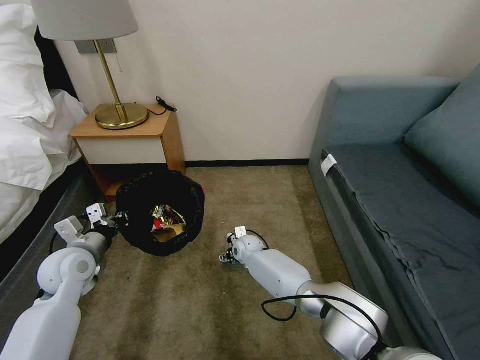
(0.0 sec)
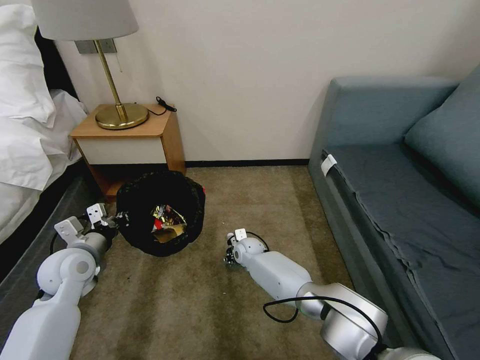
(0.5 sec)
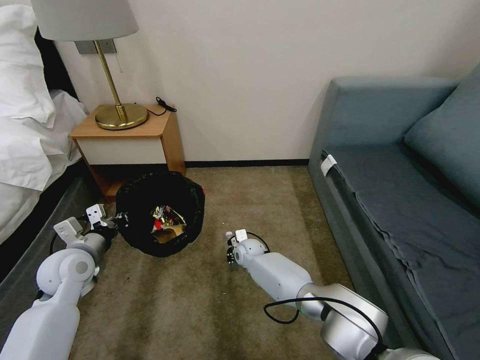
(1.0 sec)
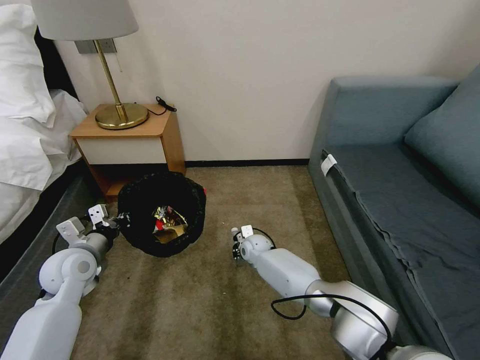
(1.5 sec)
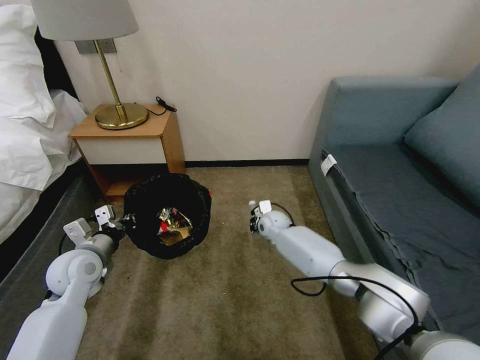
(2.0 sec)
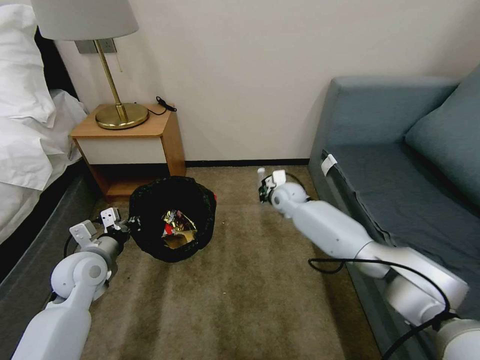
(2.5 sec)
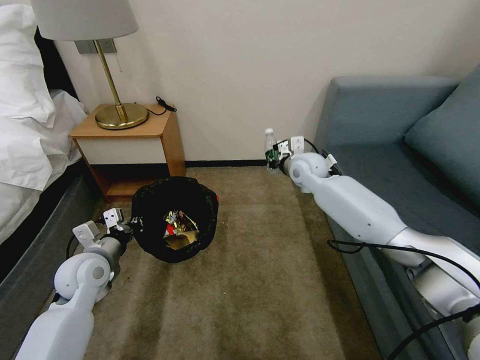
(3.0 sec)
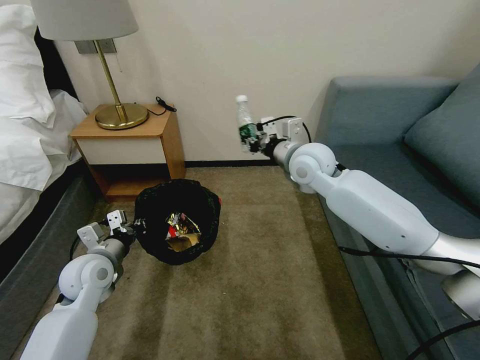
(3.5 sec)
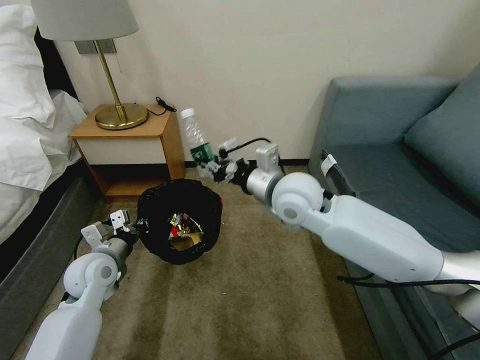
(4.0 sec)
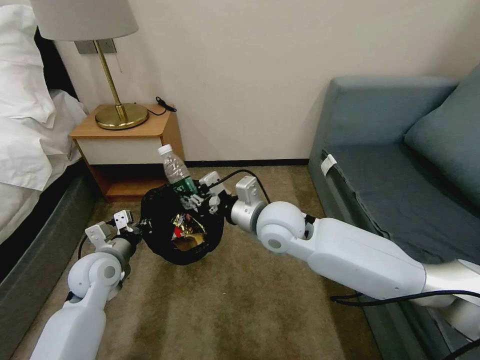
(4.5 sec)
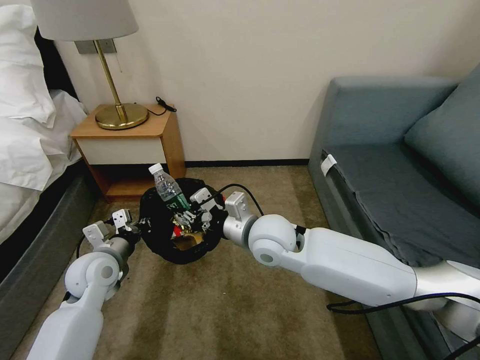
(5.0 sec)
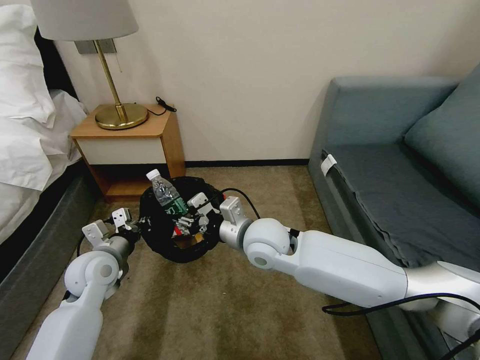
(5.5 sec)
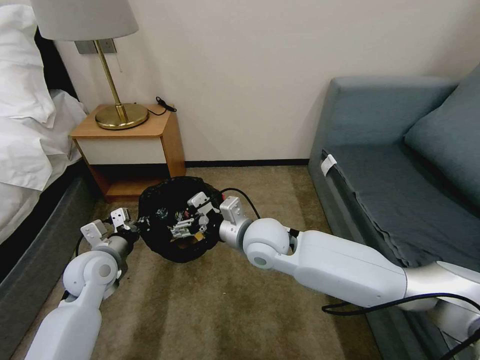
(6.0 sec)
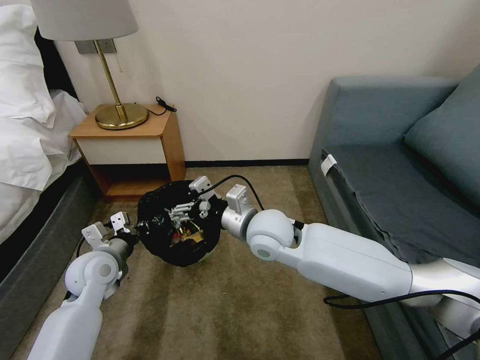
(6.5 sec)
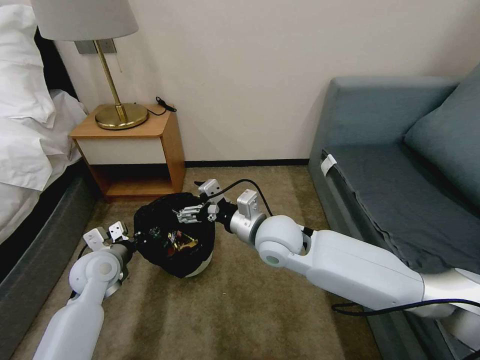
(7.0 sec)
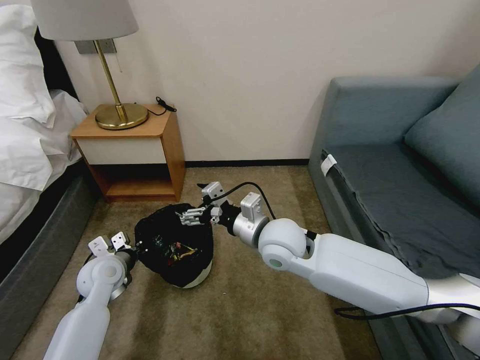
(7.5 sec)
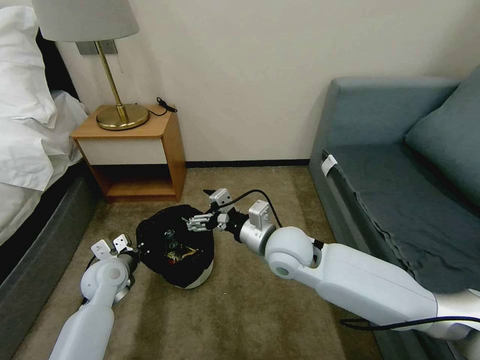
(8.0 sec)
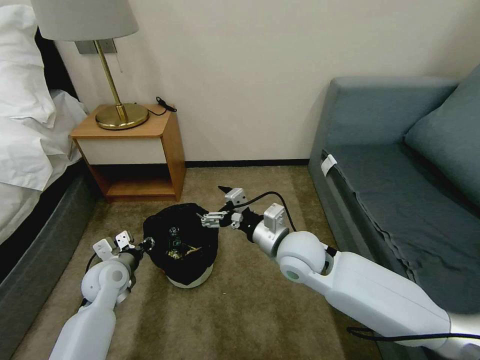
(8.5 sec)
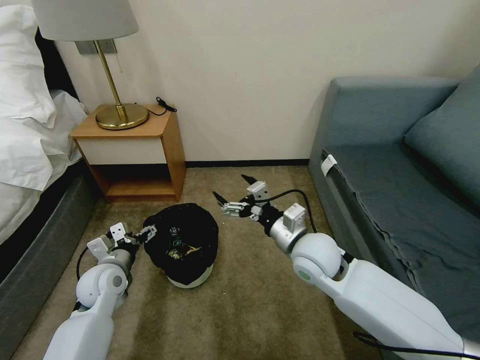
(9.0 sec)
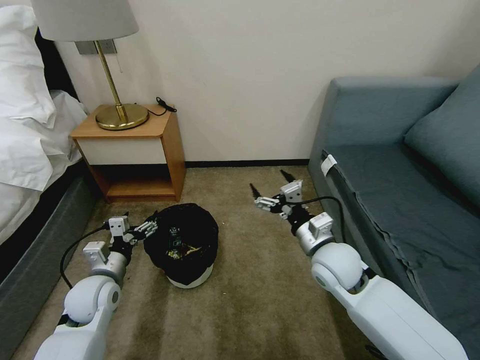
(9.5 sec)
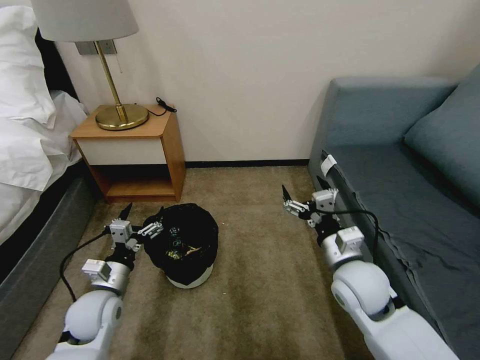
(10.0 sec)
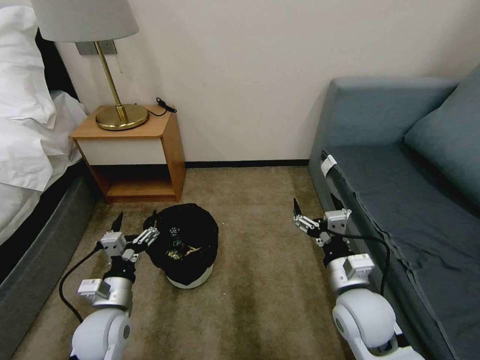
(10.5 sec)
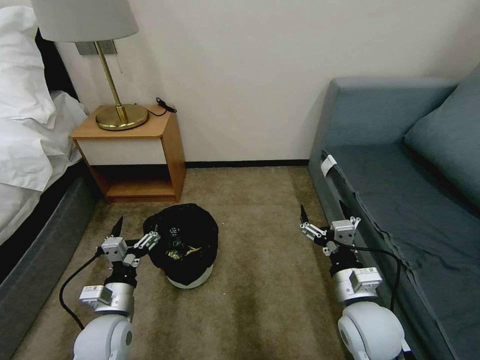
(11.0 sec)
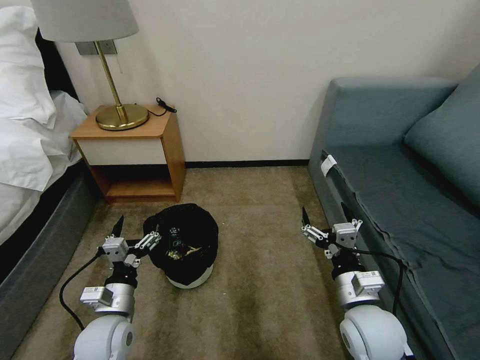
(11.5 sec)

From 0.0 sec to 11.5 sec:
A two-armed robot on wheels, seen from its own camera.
Task of the whole recording: Pick up the trash bin, then pick up the garbage on the floor and place it into the trash bin.
From 0.0 sec to 2.0 sec: The right gripper goes some 10 cm to the right, upward and forward, and closes up.
From 2.0 sec to 4.0 sec: The right gripper moves upward and backward, approximately 30 cm.
From 4.0 sec to 6.0 sec: The right gripper moves downward and to the left, about 10 cm, and opens up.
From 6.0 sec to 7.5 sec: The left gripper shifts by roughly 5 cm.
From 7.5 sec to 9.5 sec: The left gripper opens its fingers. Meanwhile the right gripper is displaced to the right by some 10 cm.
From 9.5 sec to 11.5 sec: The right gripper is displaced backward by some 10 cm. The left gripper goes some 10 cm backward and to the right.

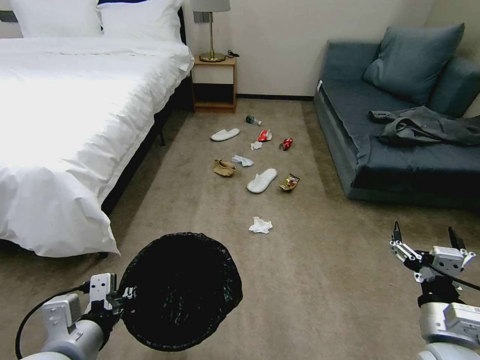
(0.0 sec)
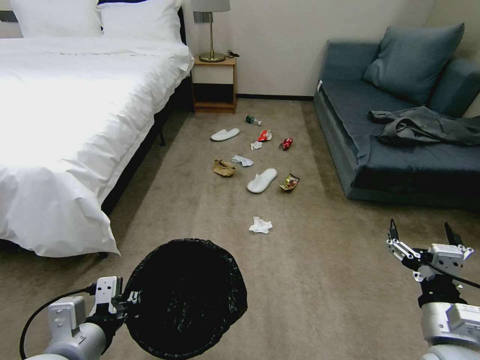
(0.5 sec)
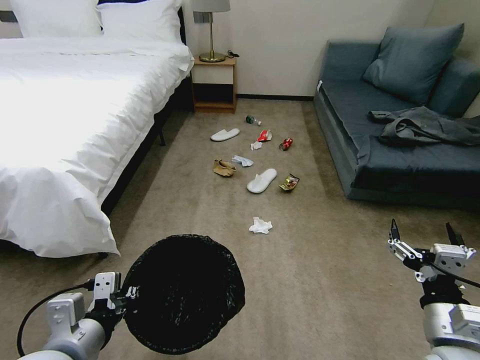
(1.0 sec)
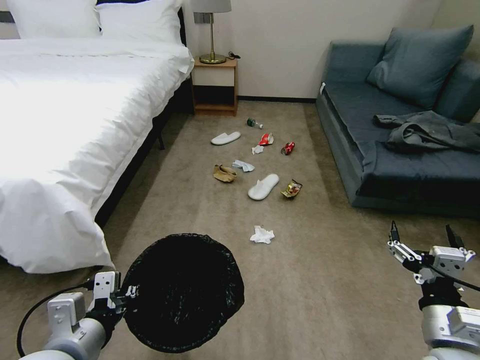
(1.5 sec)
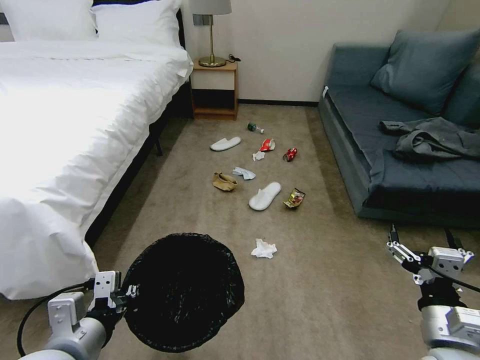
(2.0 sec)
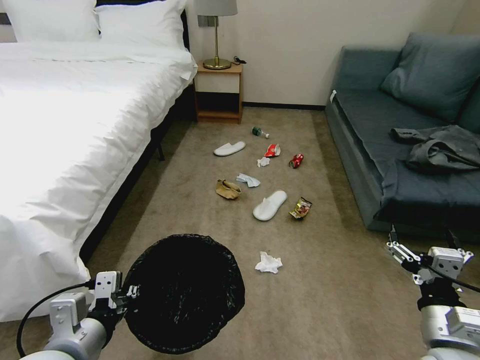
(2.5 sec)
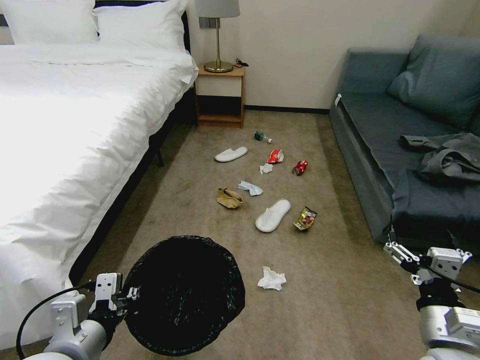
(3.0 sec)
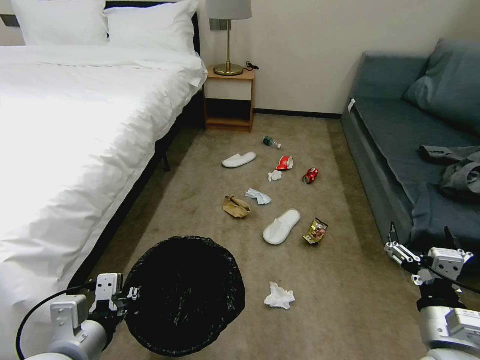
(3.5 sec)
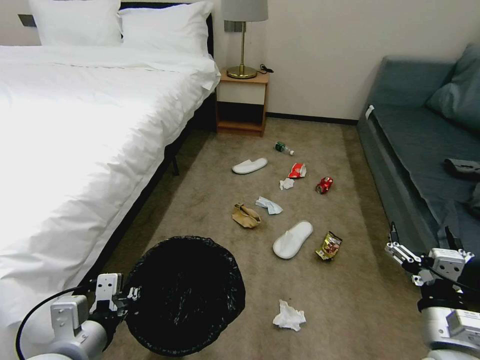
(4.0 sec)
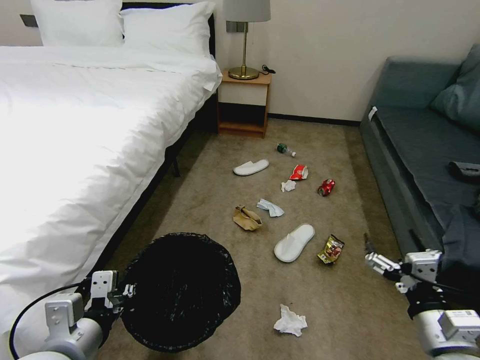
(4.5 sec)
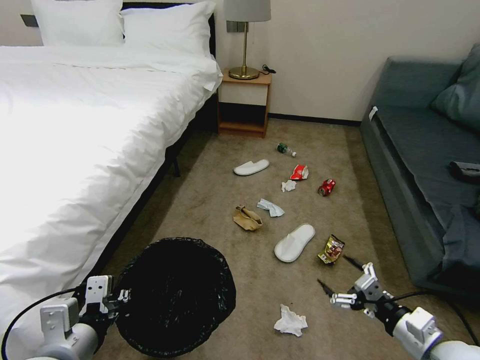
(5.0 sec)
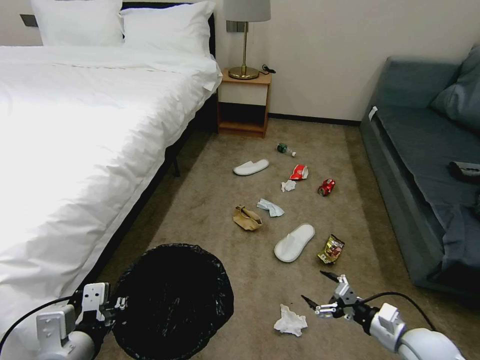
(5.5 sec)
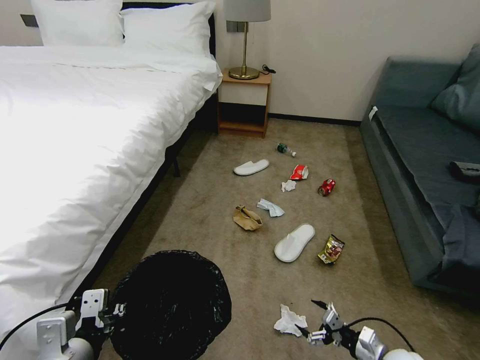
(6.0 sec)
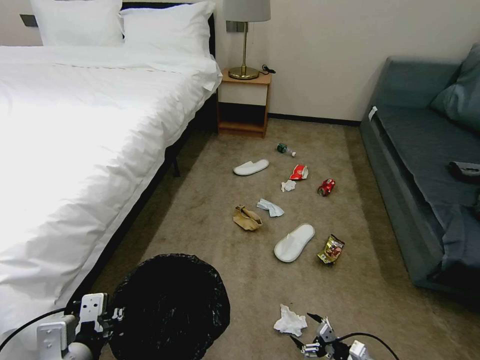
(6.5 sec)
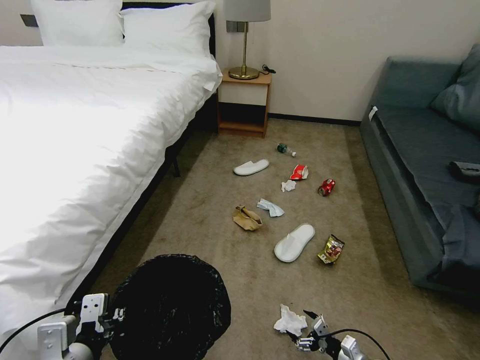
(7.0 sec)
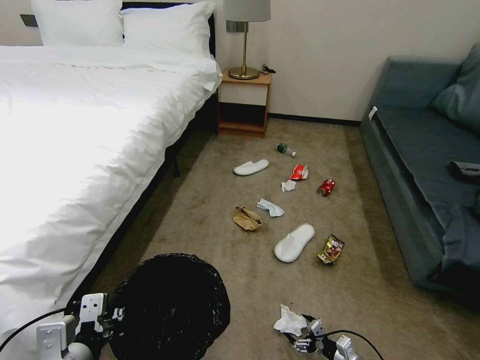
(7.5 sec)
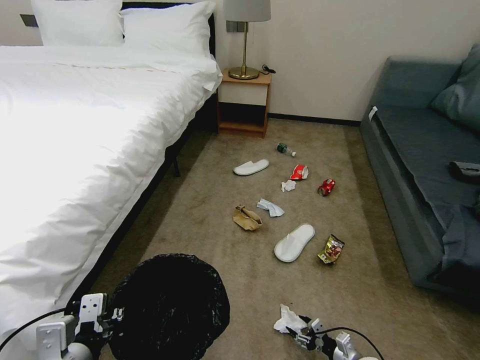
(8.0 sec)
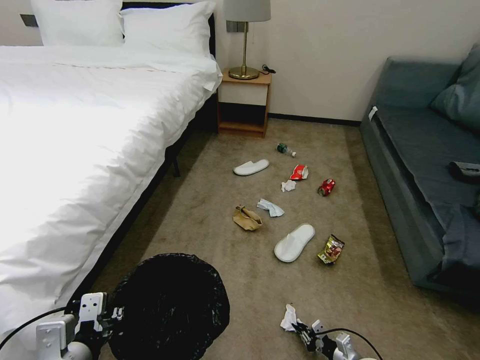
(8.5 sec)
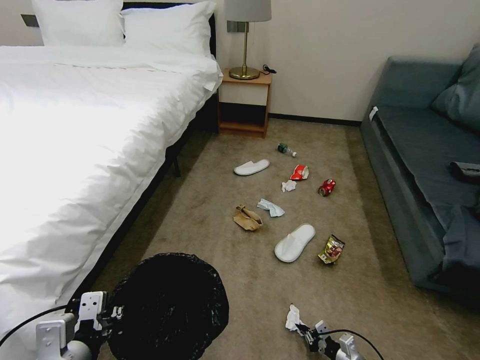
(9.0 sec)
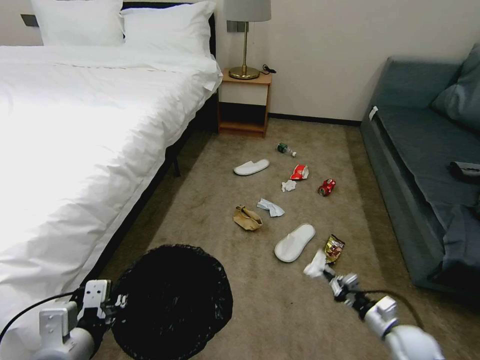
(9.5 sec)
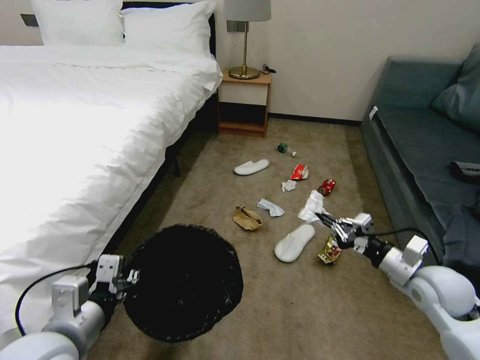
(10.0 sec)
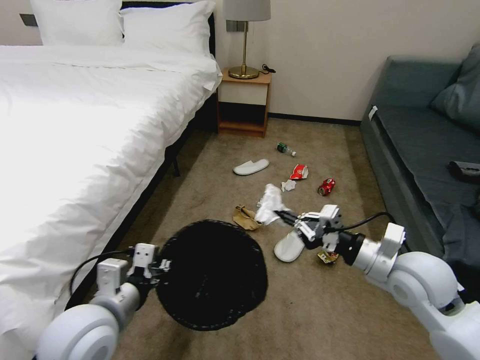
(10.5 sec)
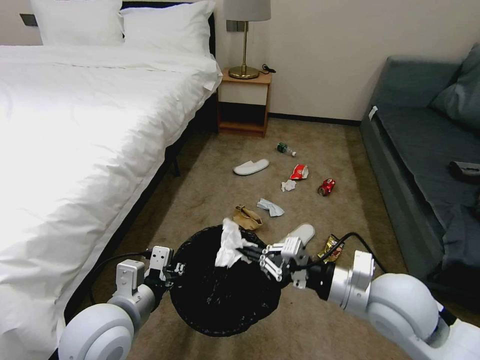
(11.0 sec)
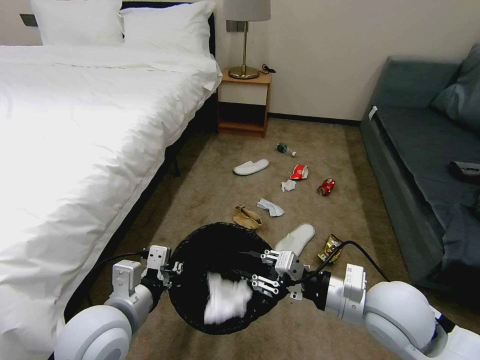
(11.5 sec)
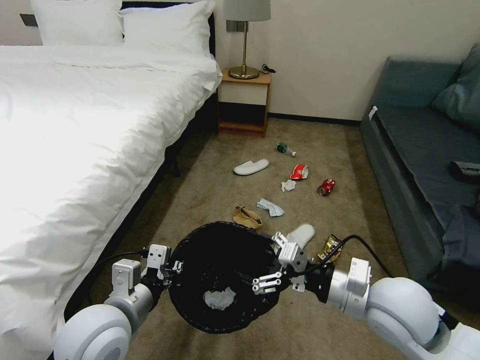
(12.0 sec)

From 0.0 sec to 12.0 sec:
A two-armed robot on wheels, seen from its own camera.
Task of the whole recording: Pick up the trash bin, then pick up the garbage on the floor and place it into the trash bin.
From 4.0 sec to 6.0 sec: The right gripper heads downward, covering about 25 cm.
From 6.0 sec to 8.0 sec: The right gripper goes approximately 10 cm downward.
From 8.0 sec to 10.0 sec: The right gripper moves upward, roughly 30 cm, and closes its fingers.
From 10.0 sec to 12.0 sec: The left gripper goes some 5 cm to the right; the right gripper heads to the left and upward, covering some 20 cm, and opens its fingers.

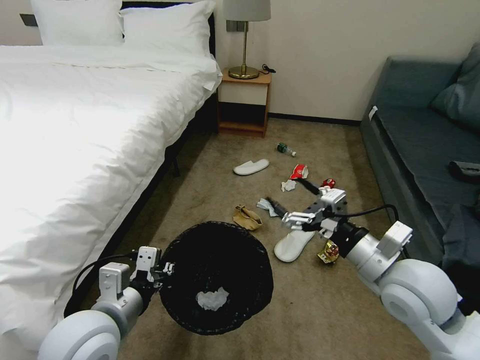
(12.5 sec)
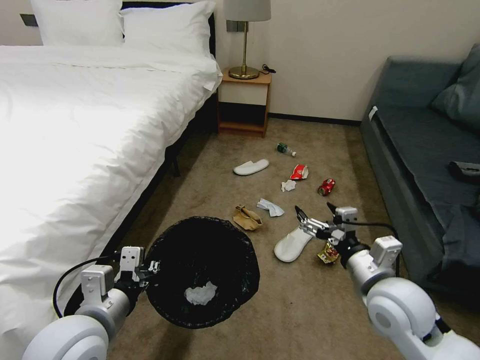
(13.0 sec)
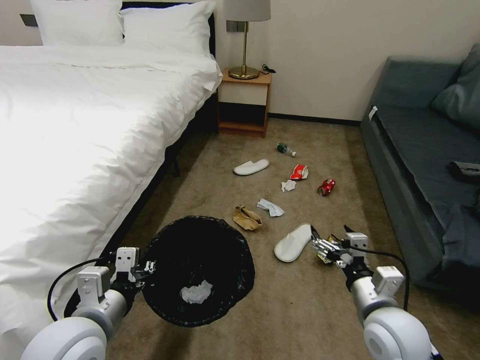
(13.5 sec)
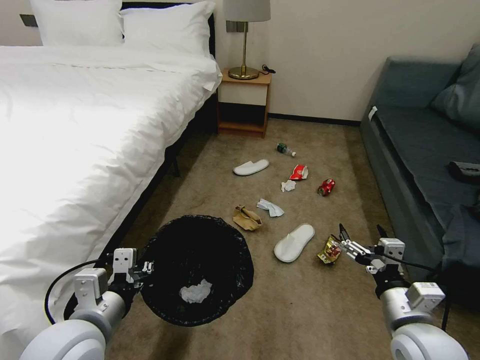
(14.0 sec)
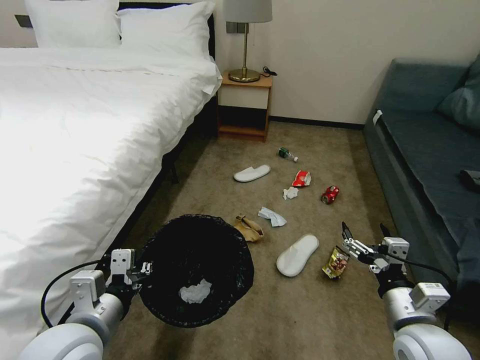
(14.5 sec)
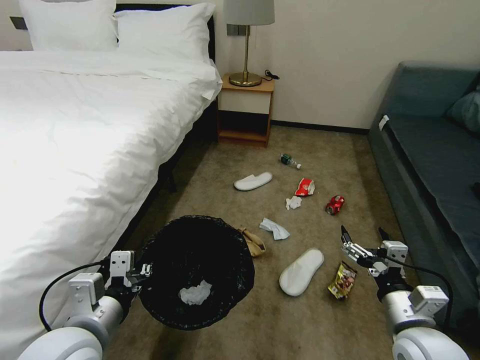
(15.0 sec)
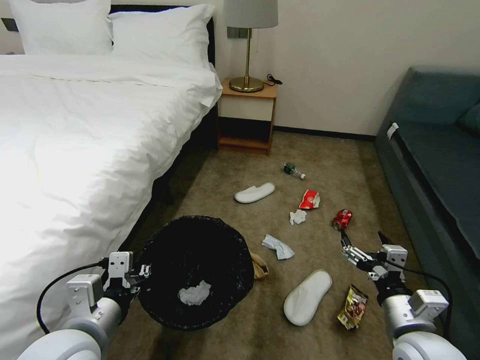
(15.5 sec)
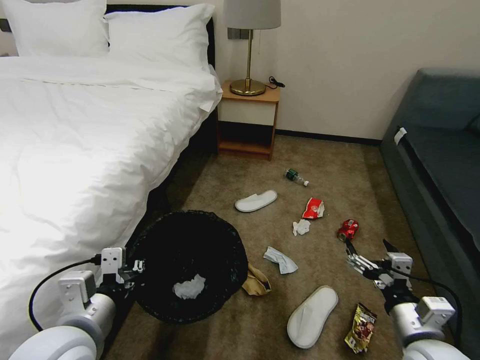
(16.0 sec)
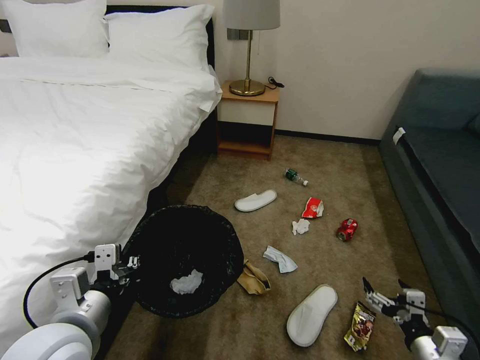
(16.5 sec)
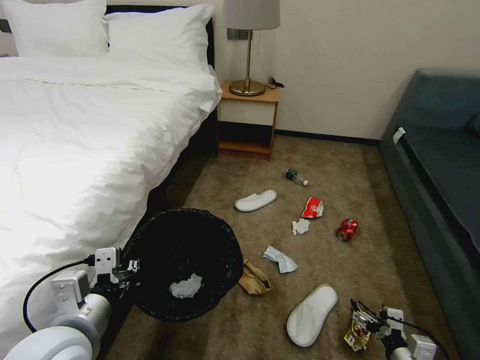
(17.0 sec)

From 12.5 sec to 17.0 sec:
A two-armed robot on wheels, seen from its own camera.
Task of the whole recording: Pick up the trash bin, then pick up the garbage on the floor and place it into the trash bin.
From 12.5 sec to 14.5 sec: The right gripper goes some 10 cm downward and backward.
From 14.5 sec to 17.0 sec: The right gripper is displaced downward and to the right by roughly 20 cm.
